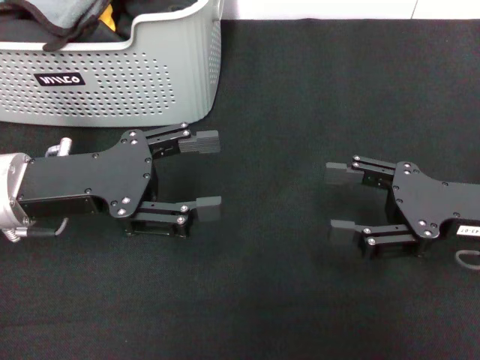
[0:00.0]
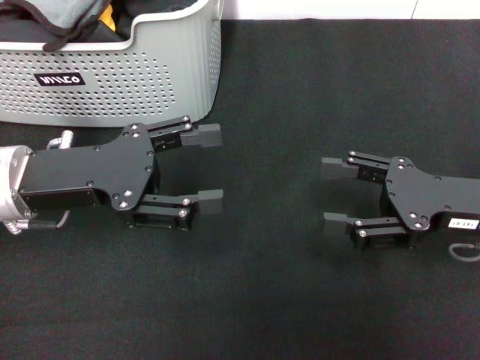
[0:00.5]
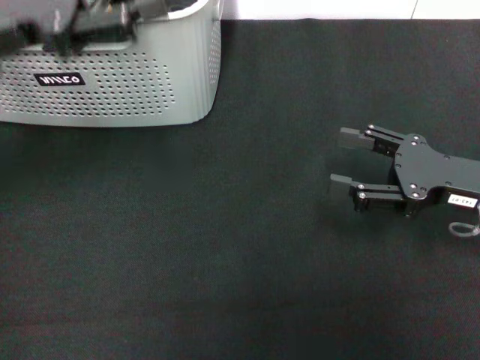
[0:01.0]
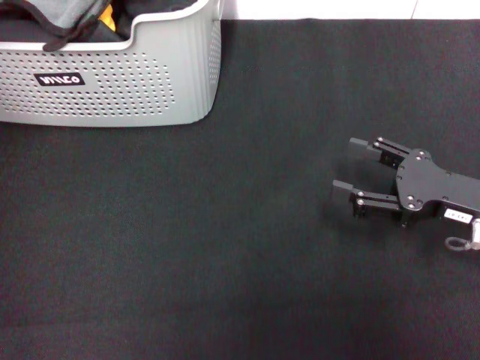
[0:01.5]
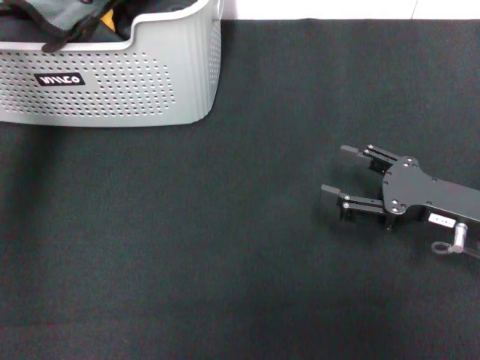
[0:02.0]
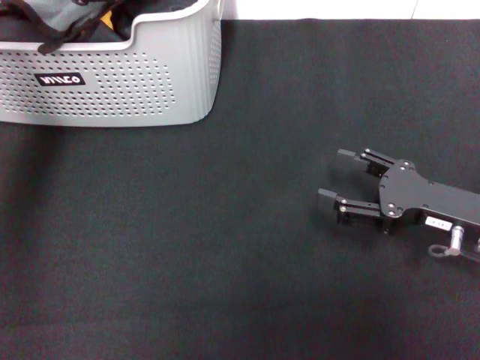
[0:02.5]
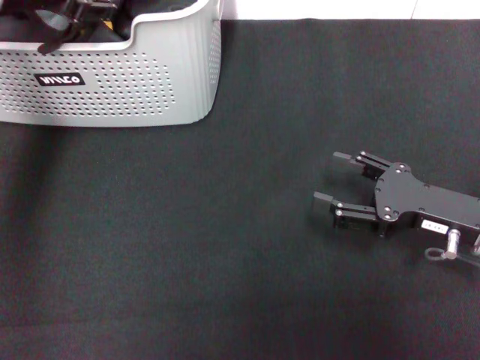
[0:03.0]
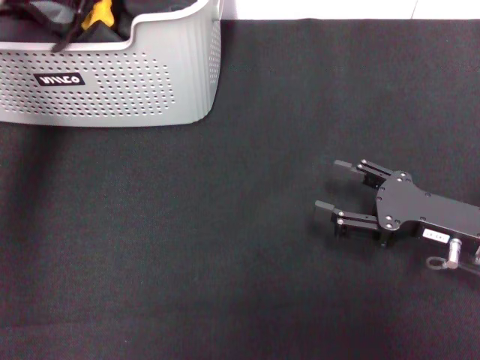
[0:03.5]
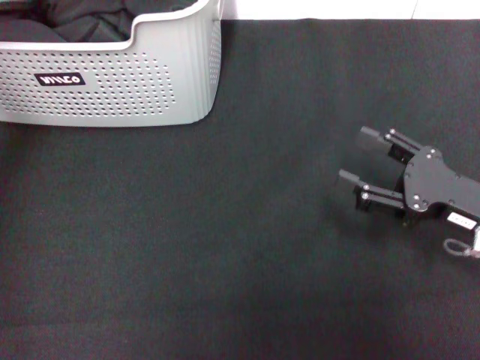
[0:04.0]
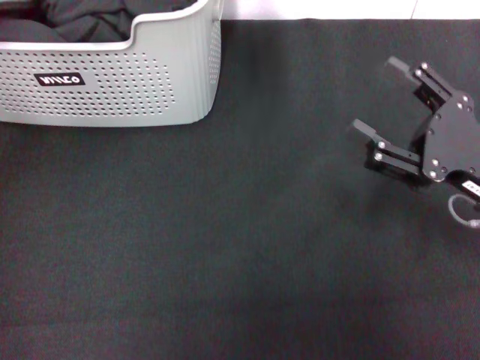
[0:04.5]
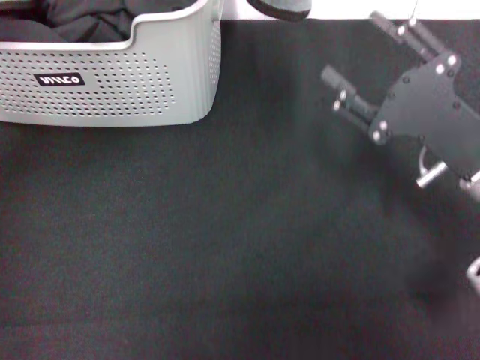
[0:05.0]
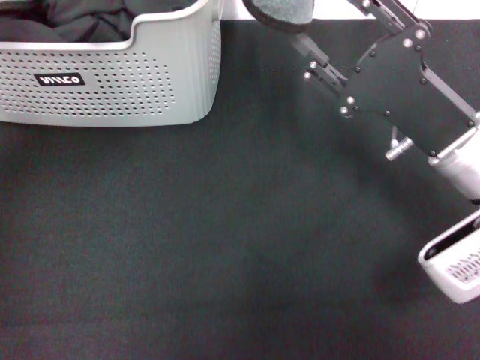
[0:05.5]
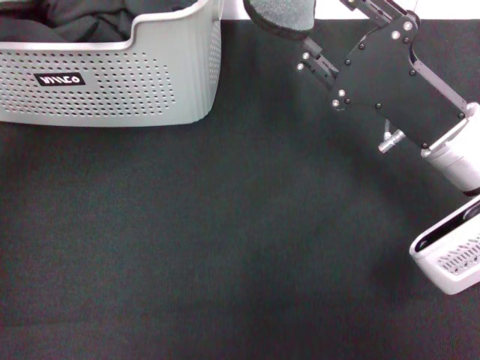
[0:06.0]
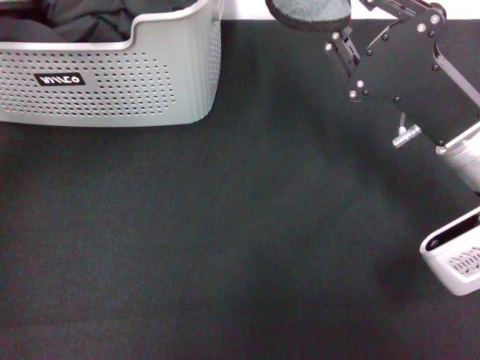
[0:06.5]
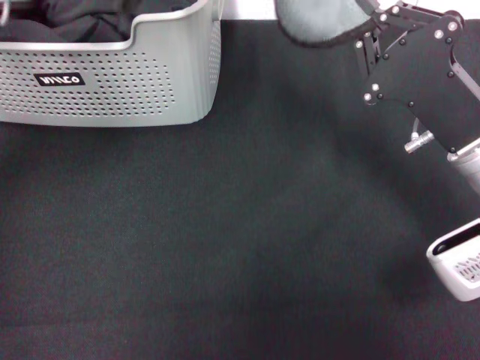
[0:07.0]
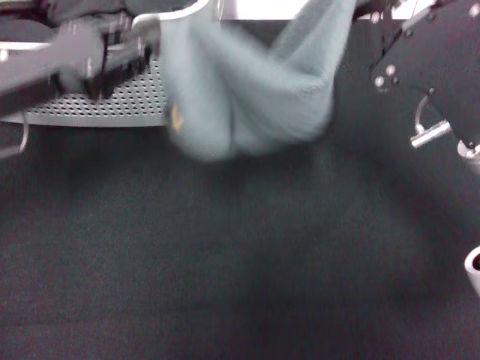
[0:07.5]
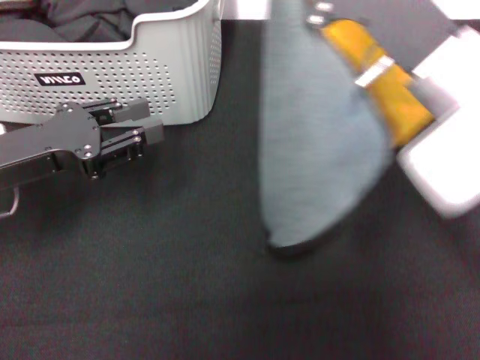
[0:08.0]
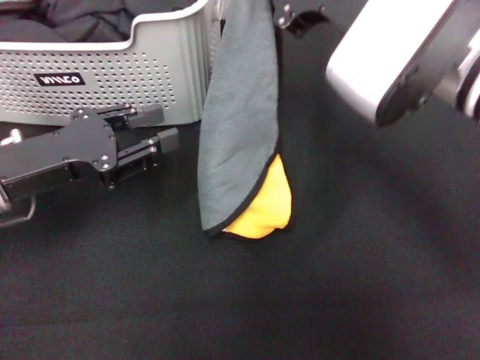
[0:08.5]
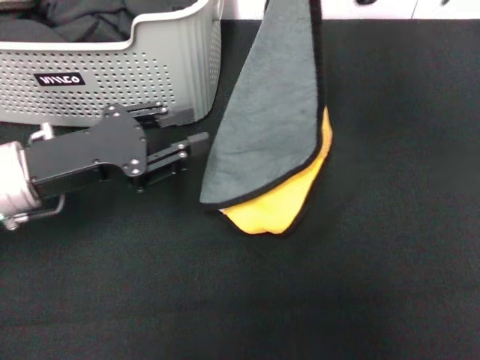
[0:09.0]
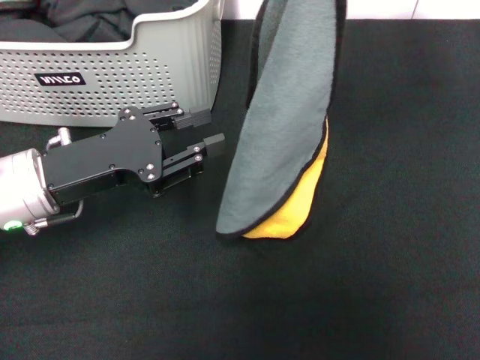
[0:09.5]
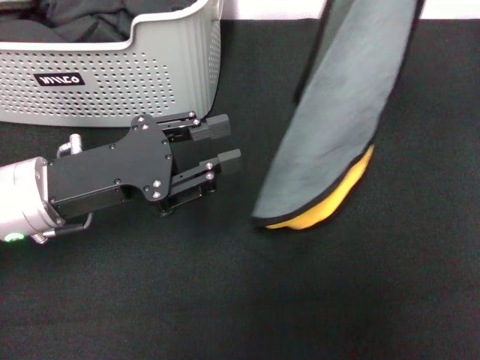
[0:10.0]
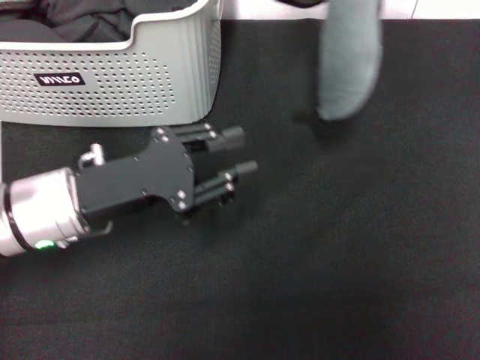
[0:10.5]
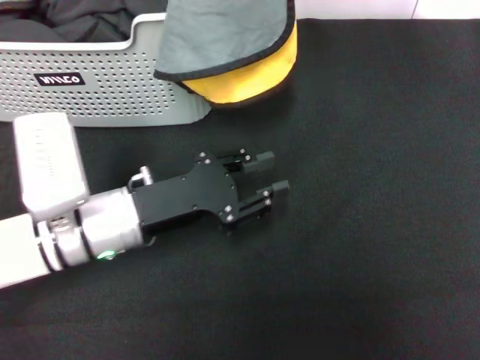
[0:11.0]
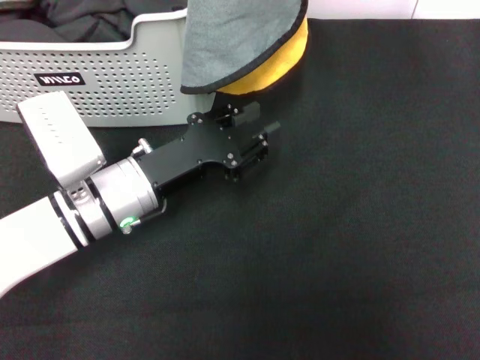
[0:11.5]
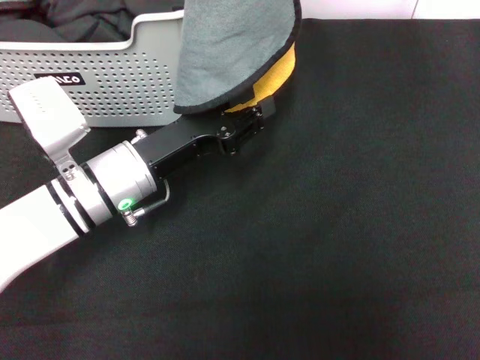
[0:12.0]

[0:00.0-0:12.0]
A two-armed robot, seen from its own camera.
Task of the whole recording: pick up the towel from the storage box and lay it flat on the black tablecloth.
Step, 0.0 to 3.0 s: Pick up a towel with the left gripper.
Step, 4.0 to 6.5 s: Spread the towel flat with the left gripper.
0.0 to 2.0 s: The left gripper shifts some 15 cm upward and forward.
2.0 to 4.0 s: The left gripper closes up.
4.0 to 6.0 s: The left gripper moves roughly 5 cm. Meanwhile the right gripper shifts roughly 10 cm to the left and upward, and closes.
6.0 to 8.0 s: The right gripper travels upward by approximately 5 cm, and closes. Meanwhile the left gripper is displaced downward by about 15 cm, and opens up.
8.0 to 10.0 s: The right gripper heads to the right, upward and forward, covering approximately 20 cm. Meanwhile the left gripper goes some 5 cm to the right.
10.0 to 12.0 s: The right gripper heads to the left, covering some 10 cm. The left gripper heads to the right and downward, covering approximately 10 cm.

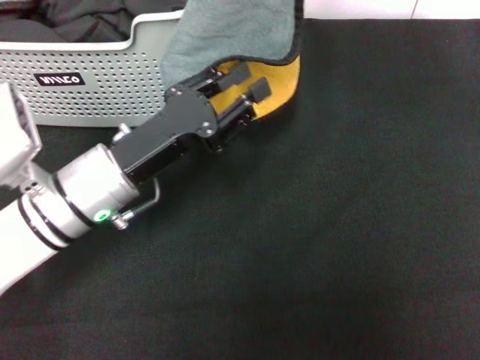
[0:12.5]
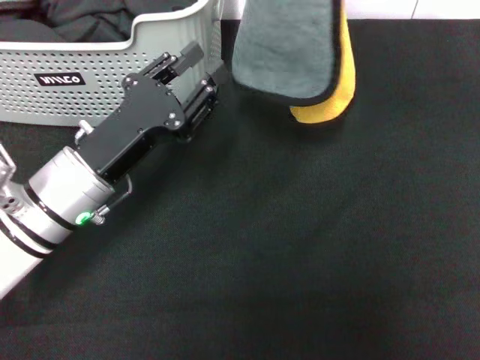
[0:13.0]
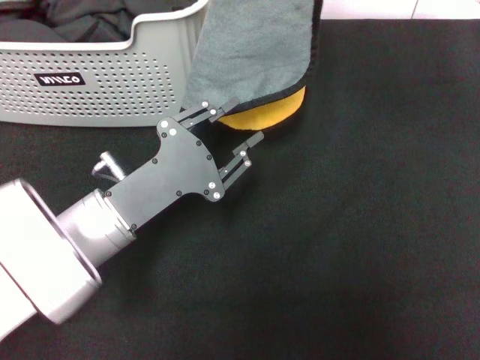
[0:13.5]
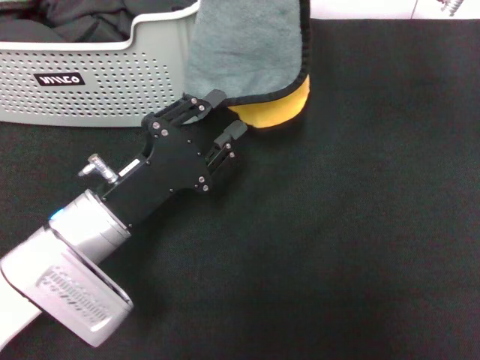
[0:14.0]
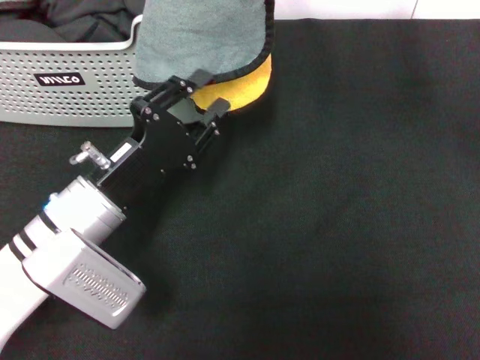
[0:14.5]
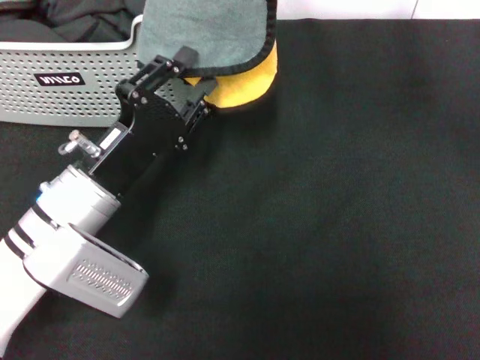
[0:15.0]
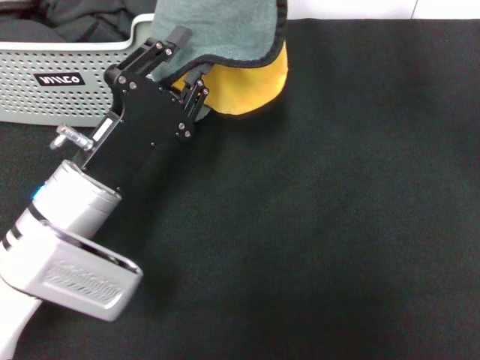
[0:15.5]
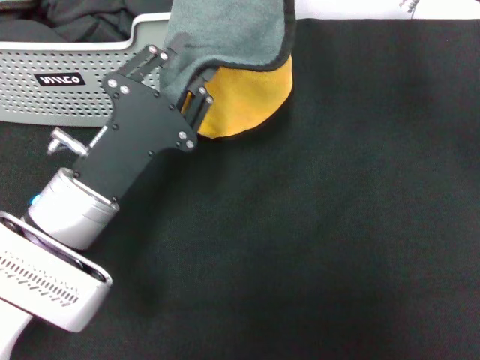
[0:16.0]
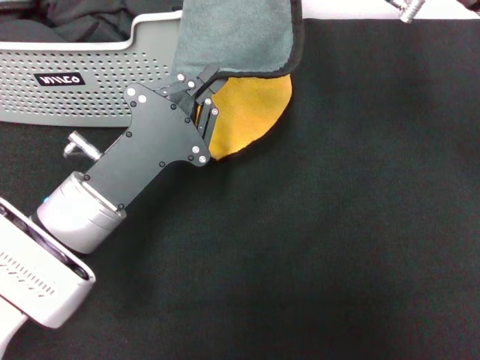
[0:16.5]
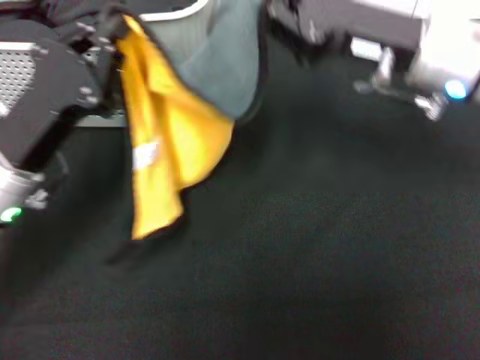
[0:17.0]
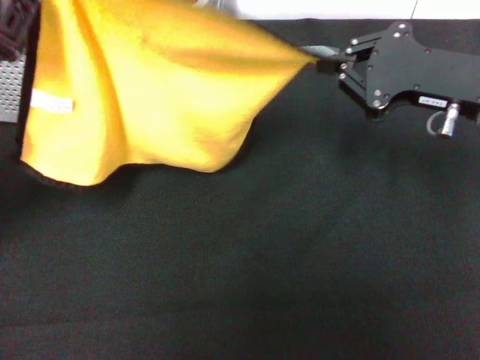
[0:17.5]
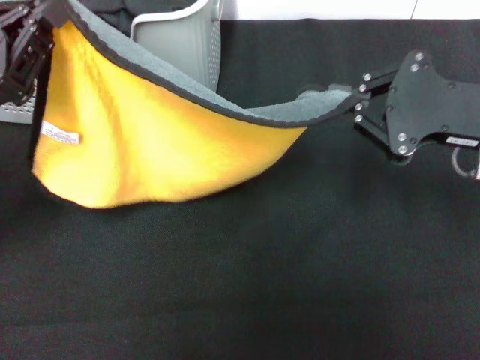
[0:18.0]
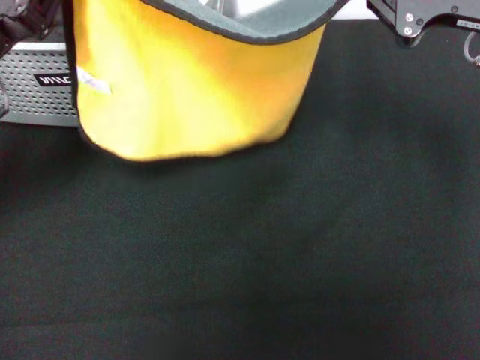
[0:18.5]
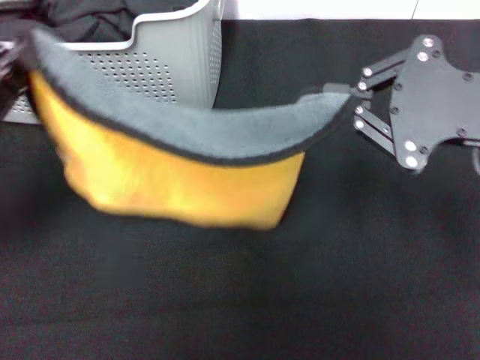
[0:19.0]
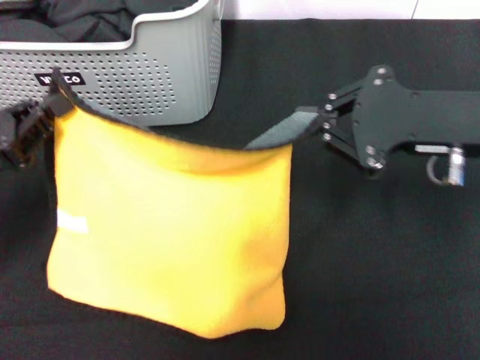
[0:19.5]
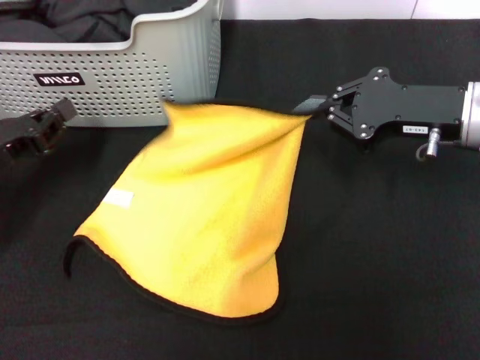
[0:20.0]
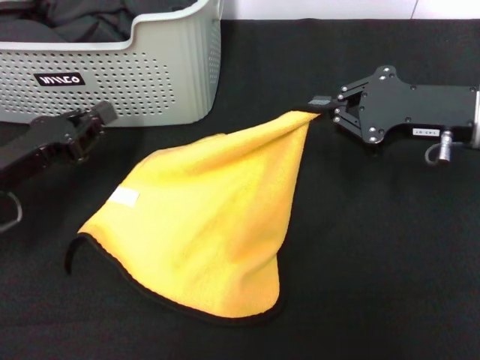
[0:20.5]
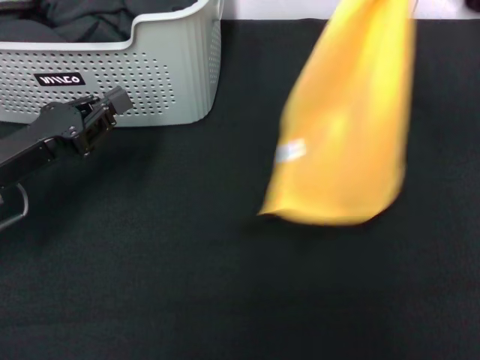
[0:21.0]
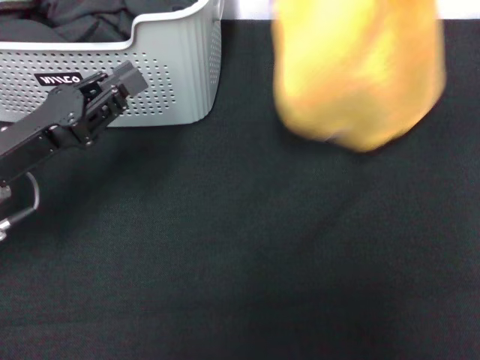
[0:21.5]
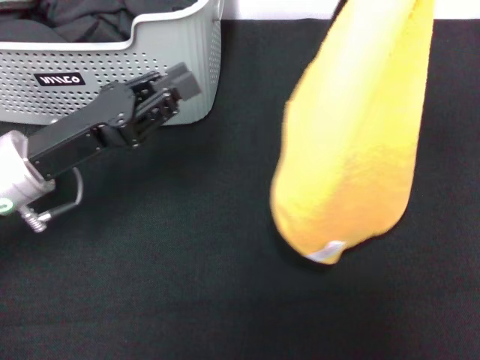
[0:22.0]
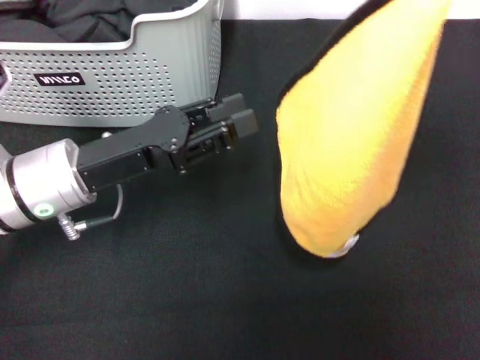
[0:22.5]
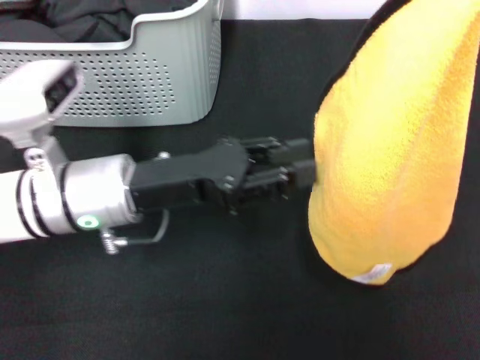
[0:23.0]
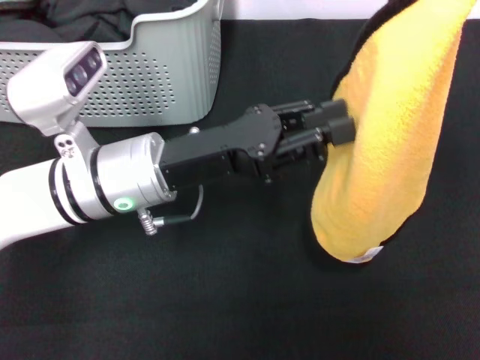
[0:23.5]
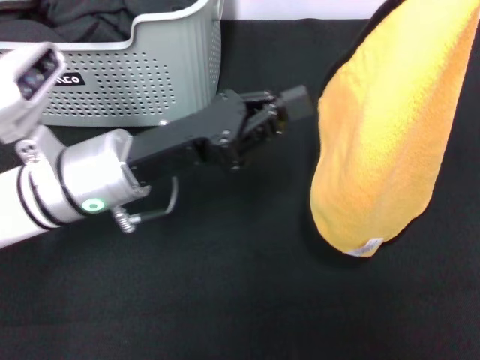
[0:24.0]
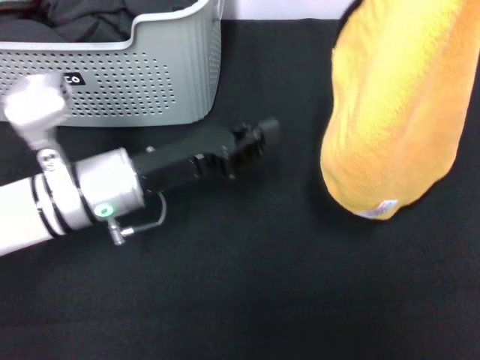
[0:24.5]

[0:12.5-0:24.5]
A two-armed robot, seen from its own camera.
Task of the whole recording: pick up the towel from the storage box and lay it flat on the black tablecloth.
12.5 to 14.5 s: The right gripper shifts by roughly 5 cm.
14.5 to 16.5 s: The left gripper closes.
16.5 to 18.5 s: The left gripper heads to the left, upward and forward, covering approximately 15 cm; the right gripper goes some 10 cm to the right.
18.5 to 20.5 s: The grippers both shift downward by some 10 cm.
20.5 to 22.5 s: The left gripper shifts about 10 cm to the right, and opens up, while the right gripper shifts about 15 cm upward and to the right.
22.5 to 24.5 s: The left gripper closes its fingers.

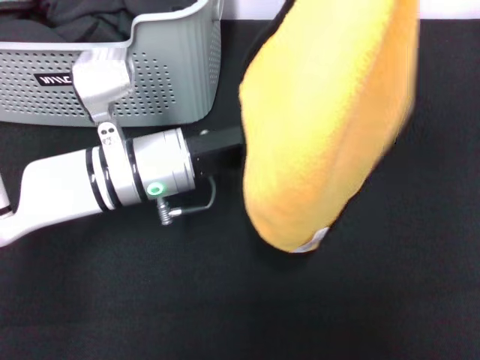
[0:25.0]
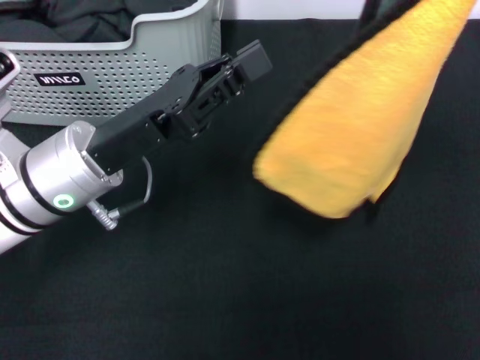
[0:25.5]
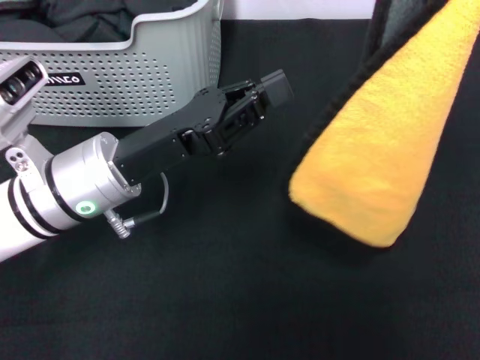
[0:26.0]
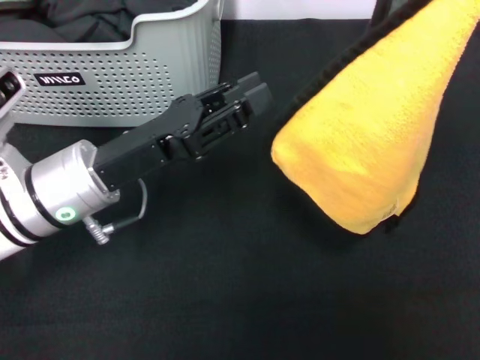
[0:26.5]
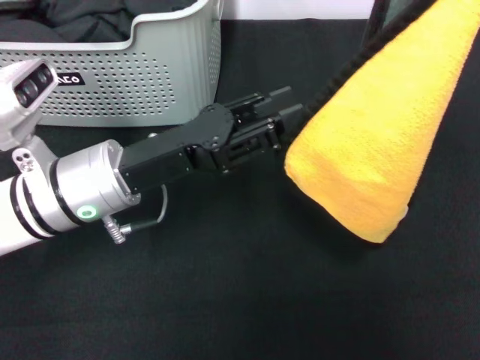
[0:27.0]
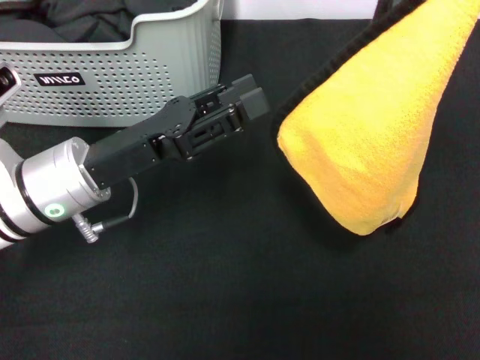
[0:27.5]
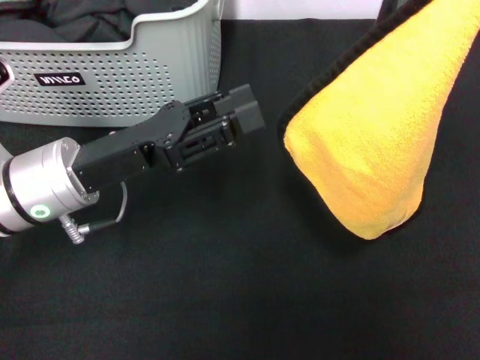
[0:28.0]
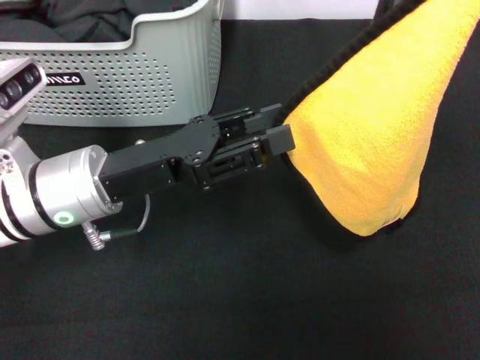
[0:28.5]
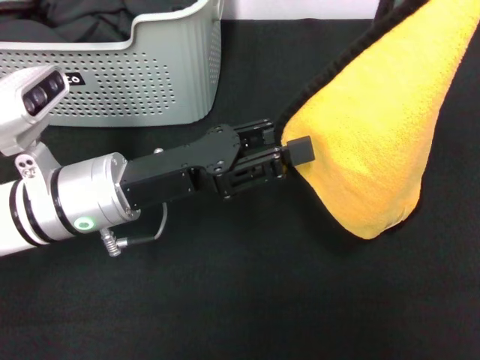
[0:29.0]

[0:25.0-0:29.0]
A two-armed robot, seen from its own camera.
Task of the whole recording: pick up the towel from the storage box and lay it flat on the black tablecloth.
25.0 to 27.0 s: The right gripper changes place by roughly 5 cm; the left gripper shifts by some 5 cm, and opens its fingers.
27.0 to 29.0 s: The grippers stay close to where they were, moving slightly.
